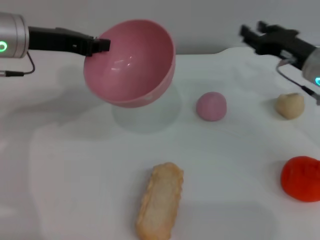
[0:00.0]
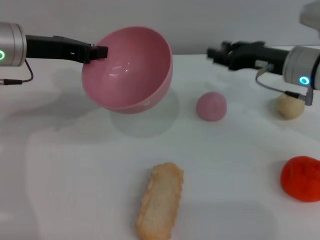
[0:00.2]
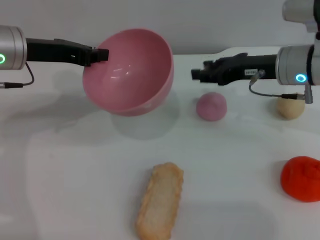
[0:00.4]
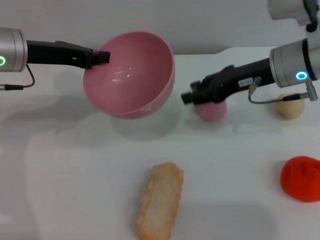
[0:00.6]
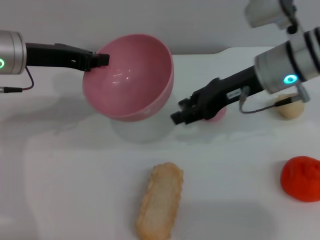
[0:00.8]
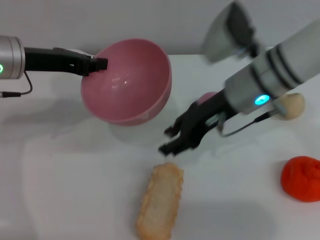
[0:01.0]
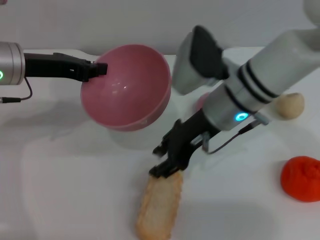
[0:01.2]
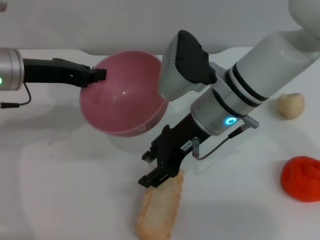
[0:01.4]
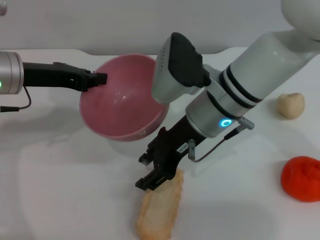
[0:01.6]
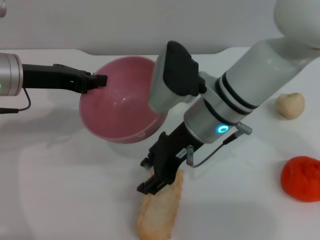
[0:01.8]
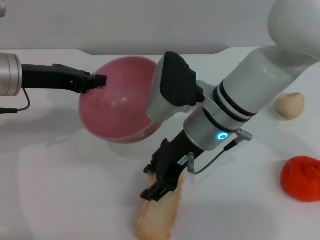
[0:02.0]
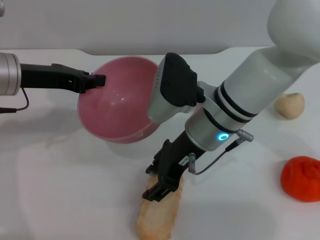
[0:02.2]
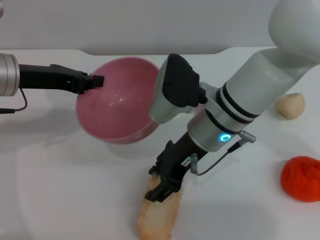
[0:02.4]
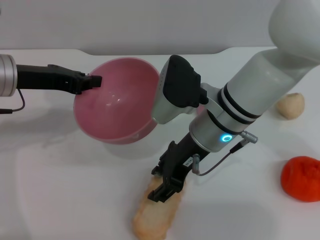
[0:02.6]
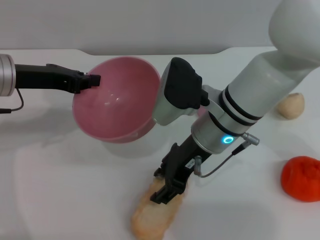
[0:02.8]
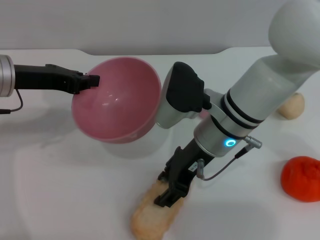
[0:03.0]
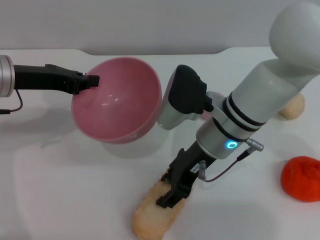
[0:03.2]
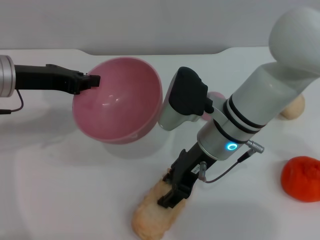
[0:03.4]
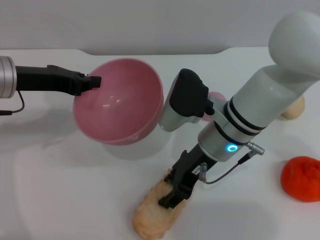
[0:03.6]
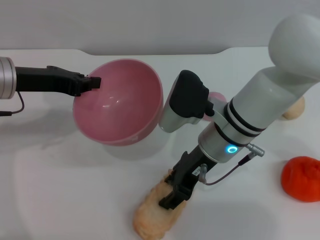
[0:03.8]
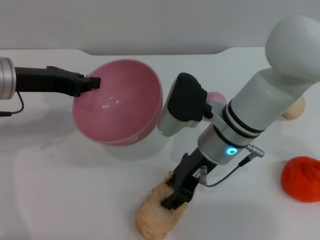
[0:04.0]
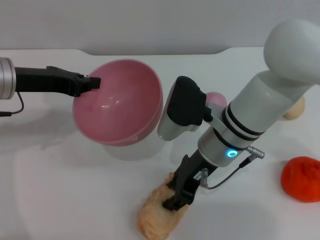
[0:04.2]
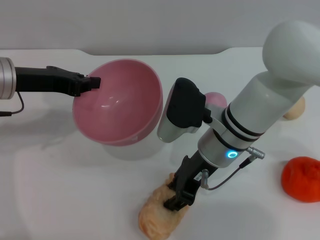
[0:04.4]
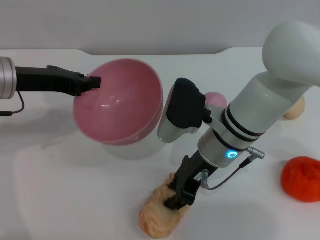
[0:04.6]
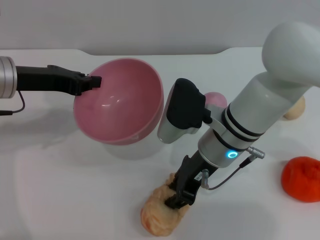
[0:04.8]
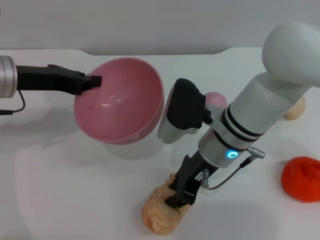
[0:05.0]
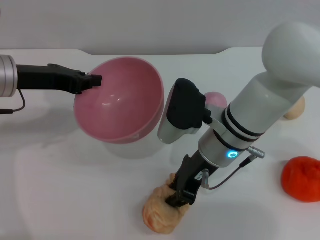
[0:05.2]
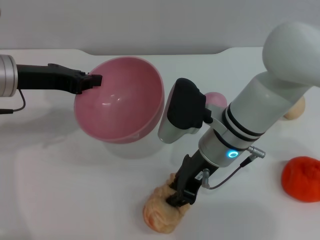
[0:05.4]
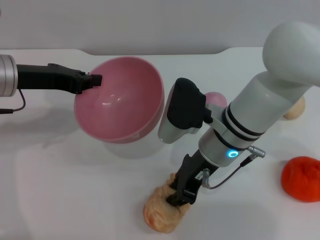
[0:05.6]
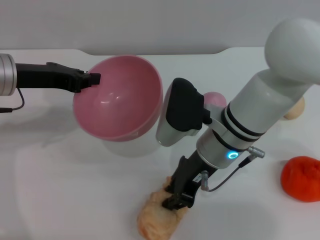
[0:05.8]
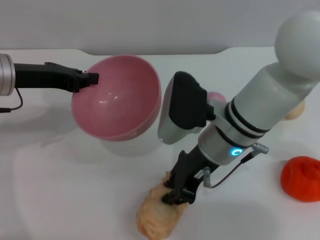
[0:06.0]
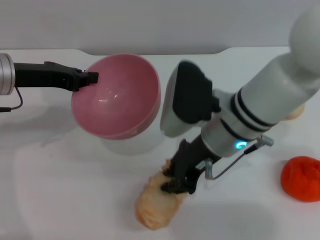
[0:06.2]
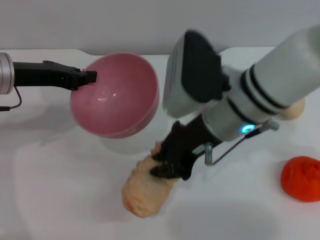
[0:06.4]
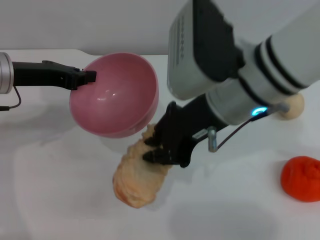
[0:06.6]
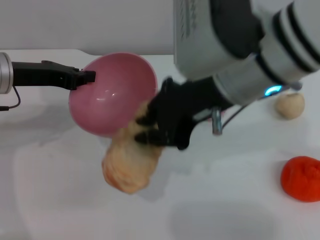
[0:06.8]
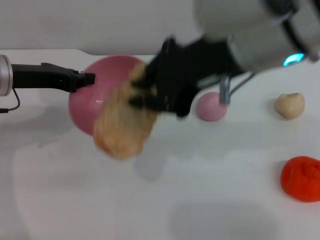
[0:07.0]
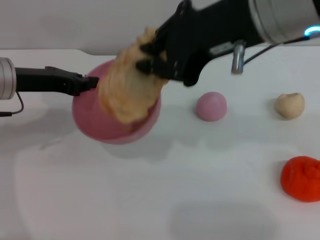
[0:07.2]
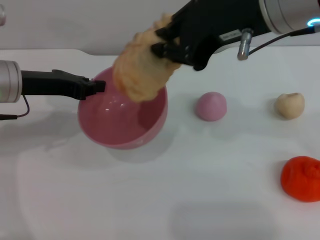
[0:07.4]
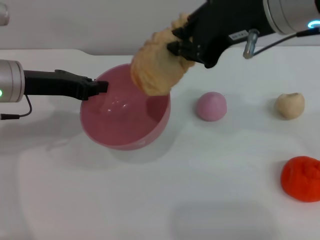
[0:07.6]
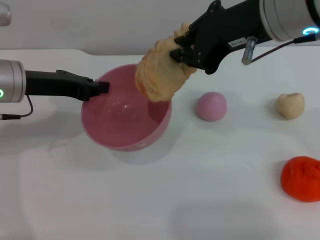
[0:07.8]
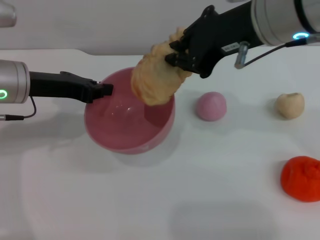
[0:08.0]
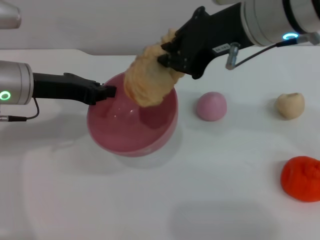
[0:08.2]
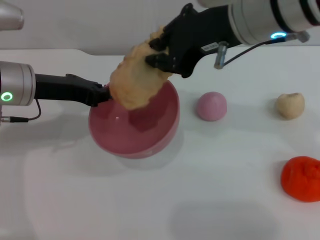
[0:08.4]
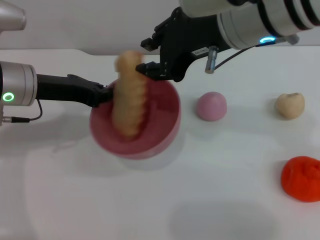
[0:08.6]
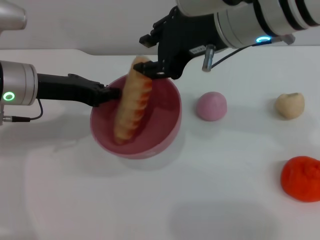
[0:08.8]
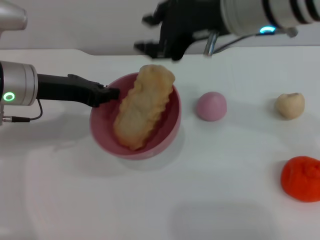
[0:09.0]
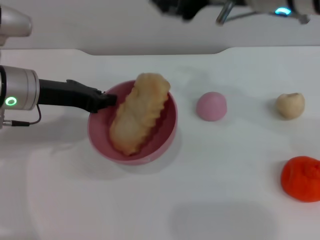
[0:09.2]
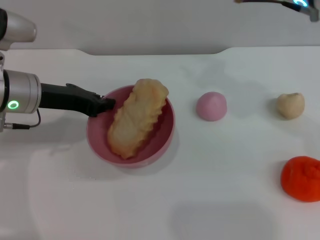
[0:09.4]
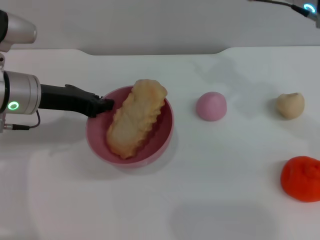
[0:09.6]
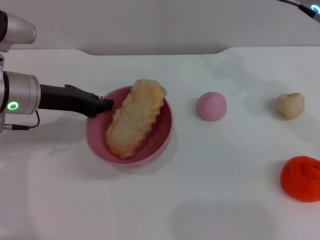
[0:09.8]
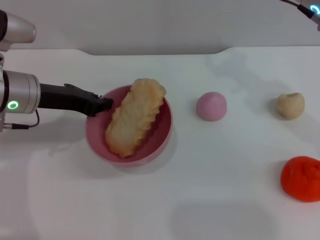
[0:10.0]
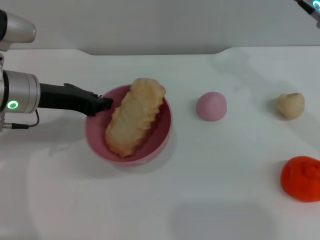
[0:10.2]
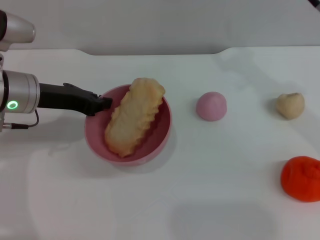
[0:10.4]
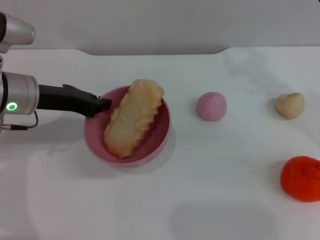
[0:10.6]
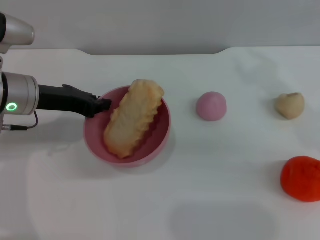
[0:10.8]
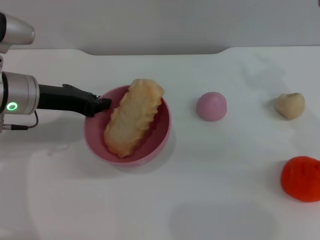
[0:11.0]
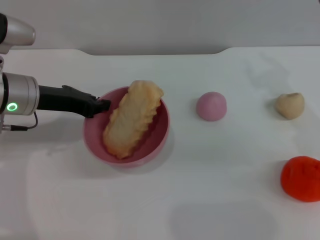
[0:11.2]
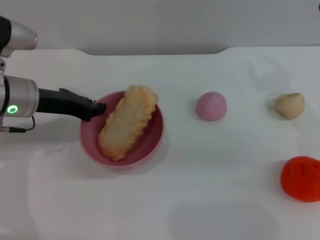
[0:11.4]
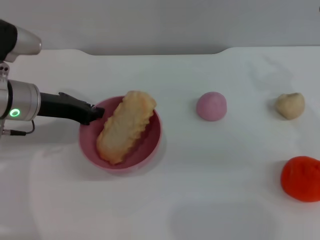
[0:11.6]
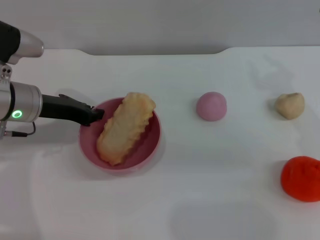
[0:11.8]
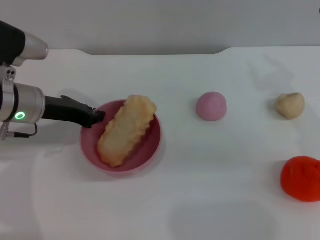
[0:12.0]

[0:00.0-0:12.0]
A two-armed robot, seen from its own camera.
Task of the whole recording: put the bread into the pink bowl and pour it out repeatedly.
Step, 0:00.0 to 0:07.2: Pick up the bread with the right gripper.
Step, 0:07.4 to 0:08.8: Place the bread into the bowl.
0:00.0 to 0:01.6: The right gripper heads to the left, covering roughly 20 cm.
0:03.0 to 0:04.4: There are only small adjustments of the grippers.
0:04.4 to 0:06.0: The right gripper closes up.
0:06.0 to 0:07.6: The right gripper goes approximately 20 cm upward.
0:07.6 to 0:09.0: The right gripper opens its fingers.
0:09.0 to 0:10.4: The right gripper moves to the right, about 10 cm.
0:10.4 to 0:12.0: The right gripper is displaced downward by about 5 cm.

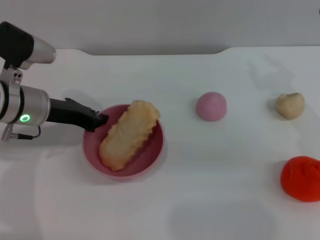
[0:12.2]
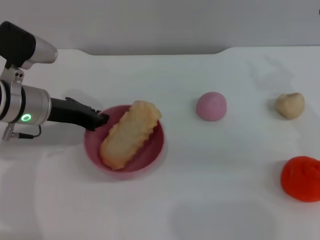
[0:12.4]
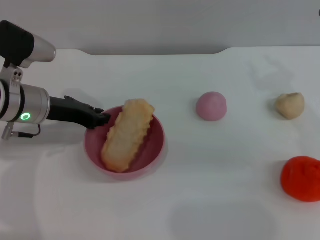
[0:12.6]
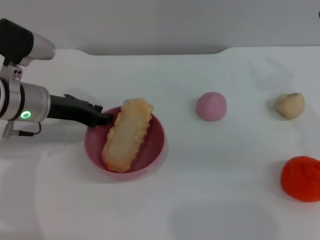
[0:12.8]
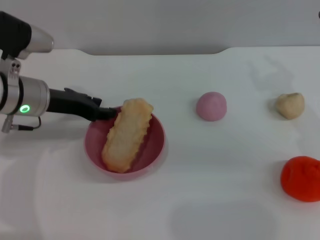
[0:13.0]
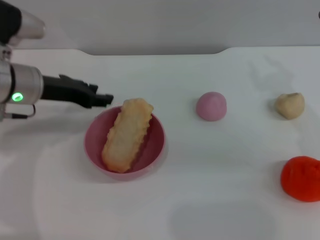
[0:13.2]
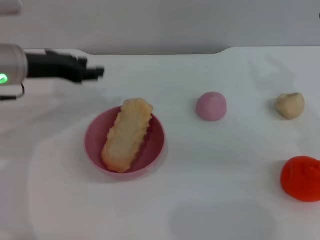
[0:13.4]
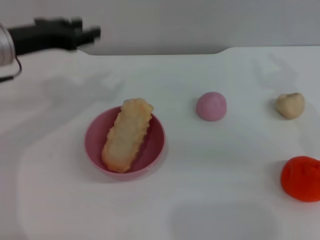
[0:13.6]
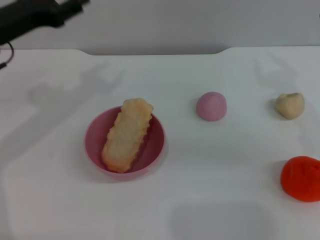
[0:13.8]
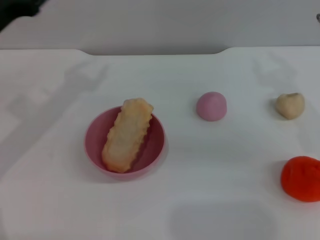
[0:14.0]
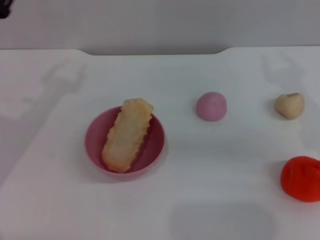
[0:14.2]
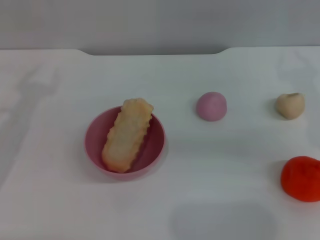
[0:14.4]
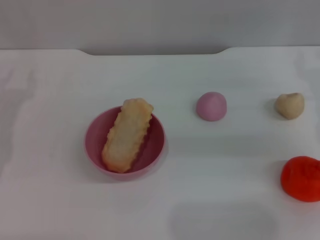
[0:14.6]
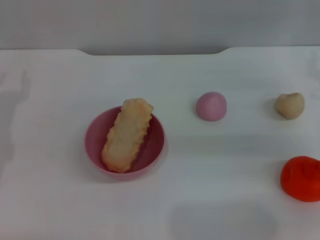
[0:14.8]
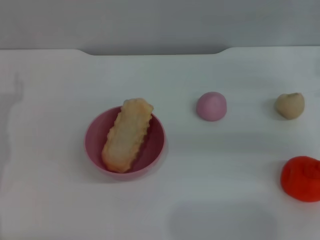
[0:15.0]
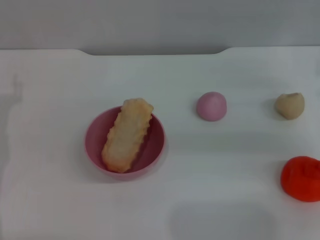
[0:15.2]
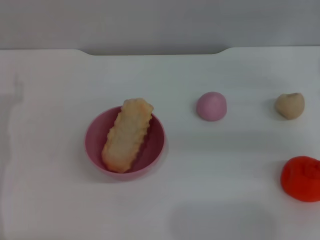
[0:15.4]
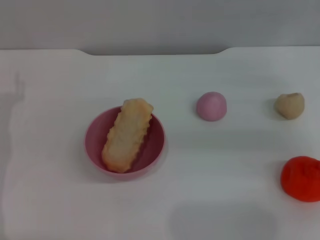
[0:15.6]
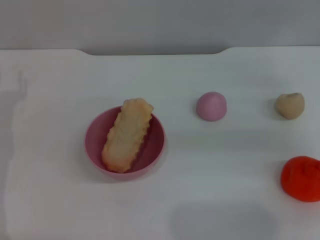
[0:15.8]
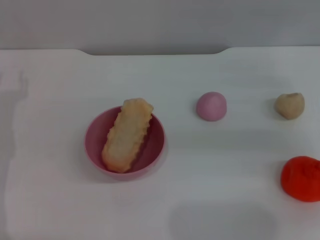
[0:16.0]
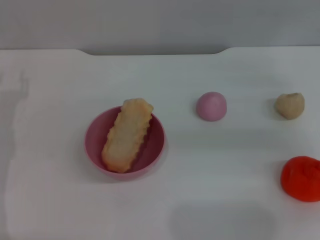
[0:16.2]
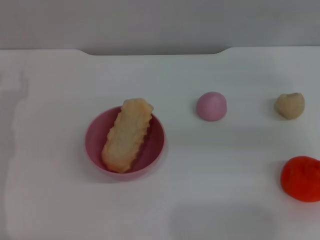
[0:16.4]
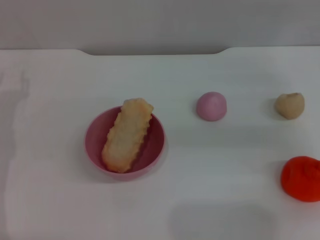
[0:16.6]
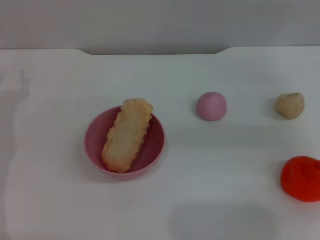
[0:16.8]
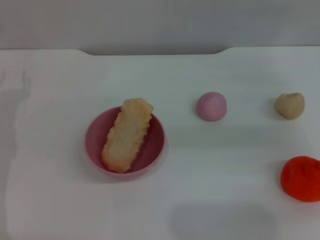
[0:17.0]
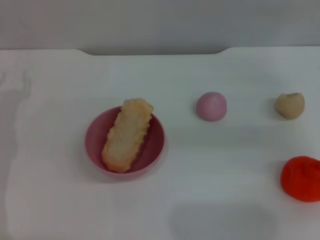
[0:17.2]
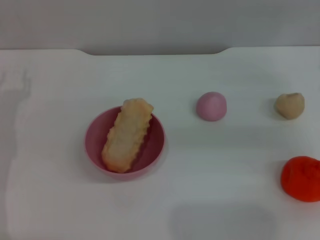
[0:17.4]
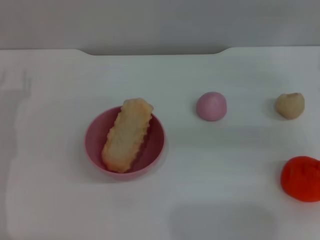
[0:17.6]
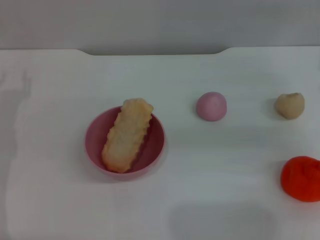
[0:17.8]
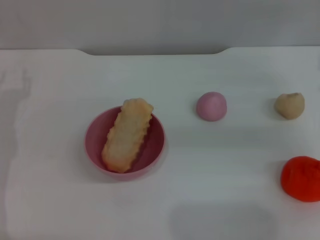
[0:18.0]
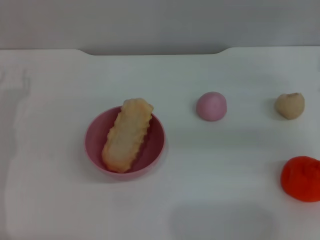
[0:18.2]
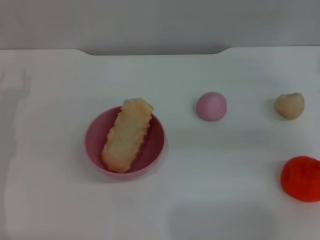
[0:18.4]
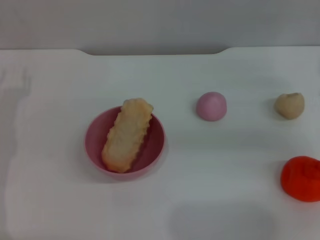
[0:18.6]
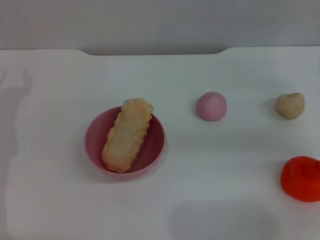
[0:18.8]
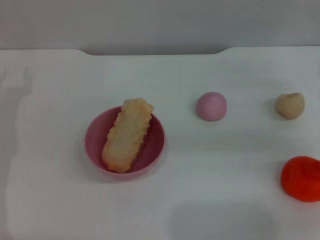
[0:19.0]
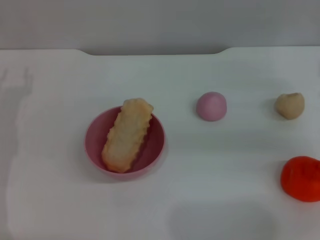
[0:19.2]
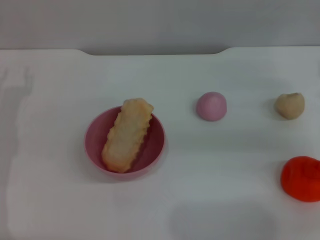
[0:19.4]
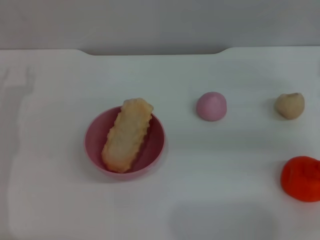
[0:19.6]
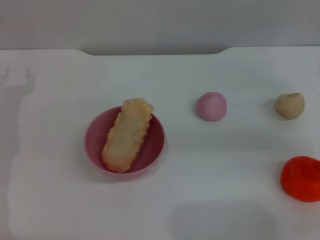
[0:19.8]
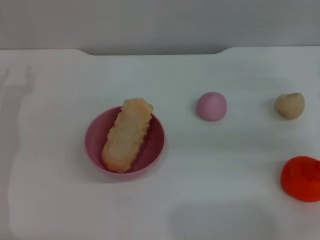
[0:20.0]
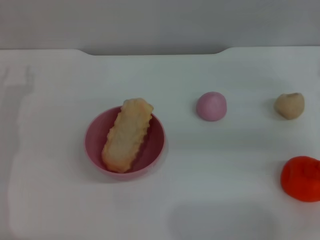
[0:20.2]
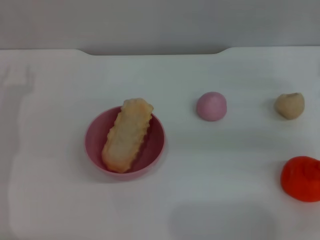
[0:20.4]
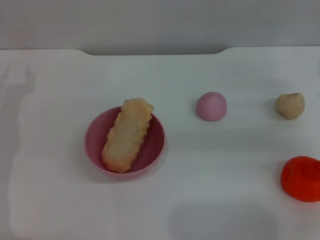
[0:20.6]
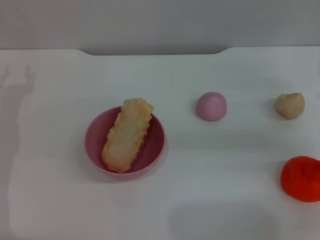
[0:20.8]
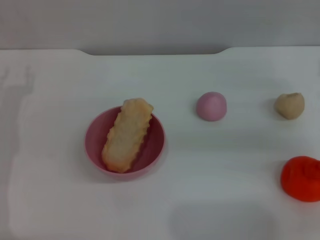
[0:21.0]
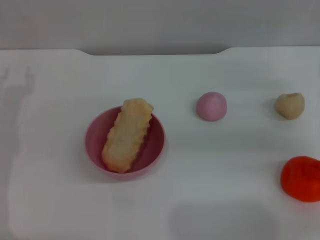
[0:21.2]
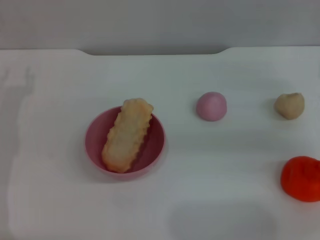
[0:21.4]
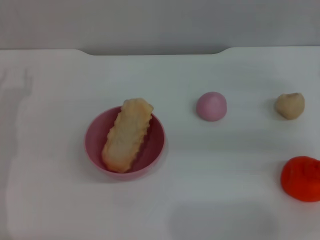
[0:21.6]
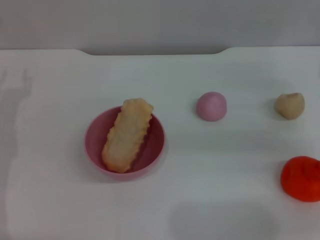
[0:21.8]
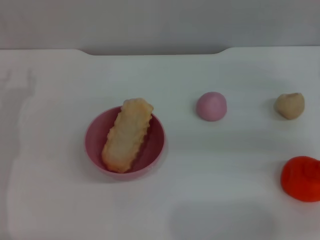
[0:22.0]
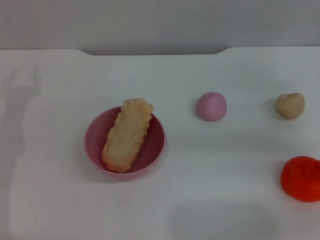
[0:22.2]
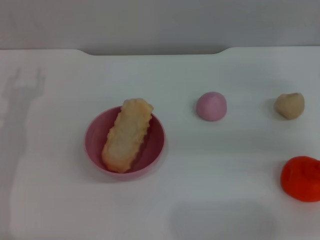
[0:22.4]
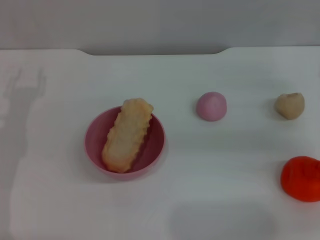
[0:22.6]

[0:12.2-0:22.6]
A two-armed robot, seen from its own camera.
Task of the whole recording: put the bread into the pink bowl and pour it out repeatedly.
0:12.2 to 0:13.6: The left gripper goes roughly 5 cm upward, and opens up.
0:13.6 to 0:15.2: The left gripper shifts approximately 15 cm downward, to the left and backward, while the right gripper shifts roughly 5 cm to the right.
0:15.2 to 0:16.6: Both grippers stay put.
0:16.6 to 0:18.2: Neither gripper changes place.
0:19.6 to 0:21.2: Both grippers stay about where they are.
